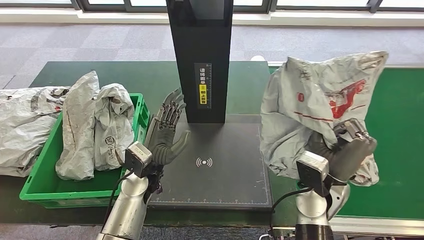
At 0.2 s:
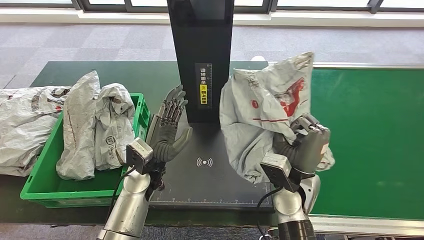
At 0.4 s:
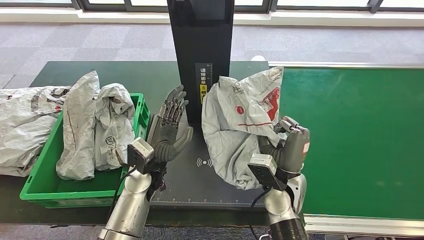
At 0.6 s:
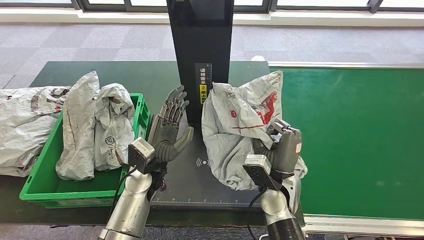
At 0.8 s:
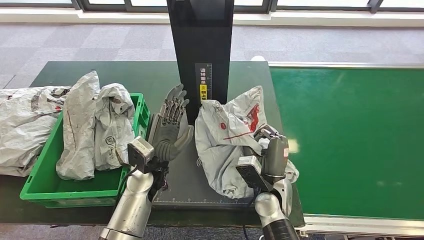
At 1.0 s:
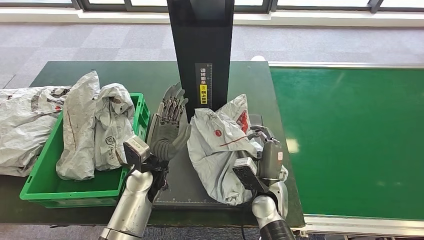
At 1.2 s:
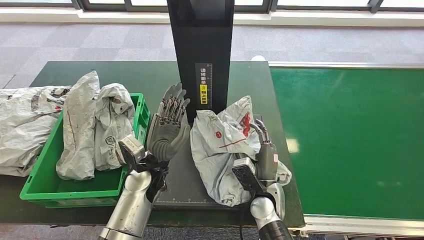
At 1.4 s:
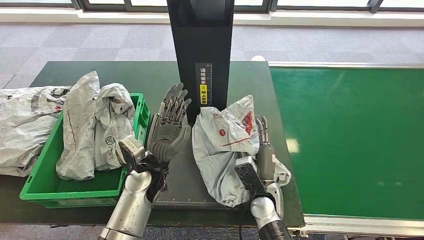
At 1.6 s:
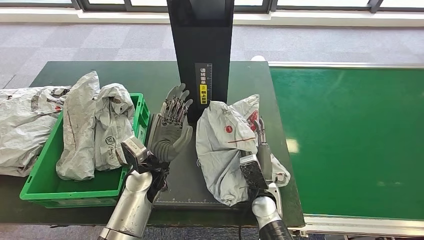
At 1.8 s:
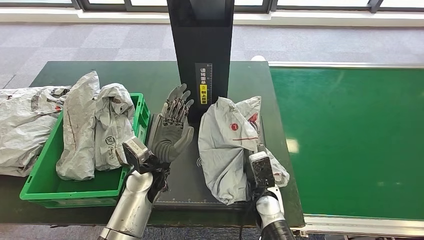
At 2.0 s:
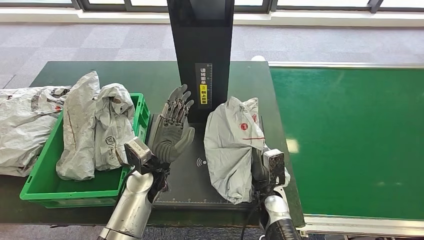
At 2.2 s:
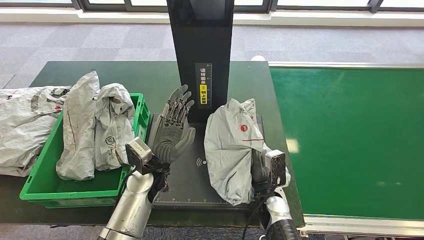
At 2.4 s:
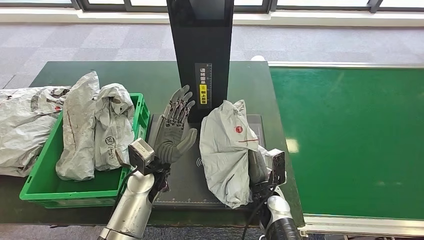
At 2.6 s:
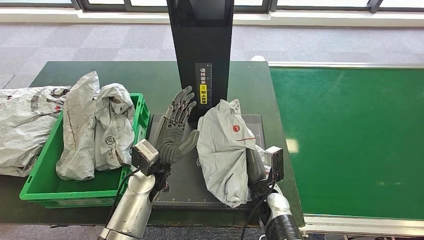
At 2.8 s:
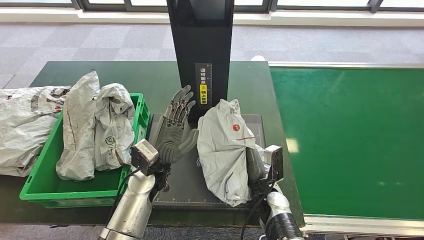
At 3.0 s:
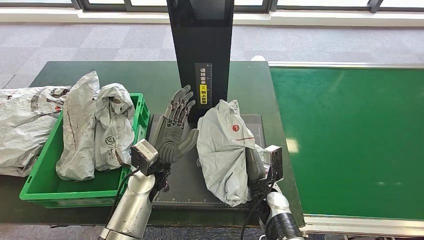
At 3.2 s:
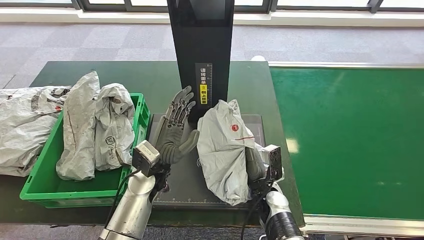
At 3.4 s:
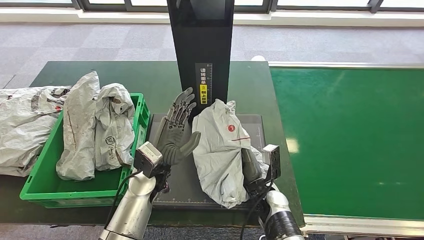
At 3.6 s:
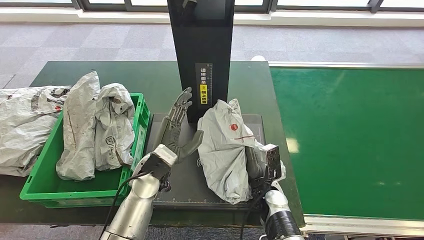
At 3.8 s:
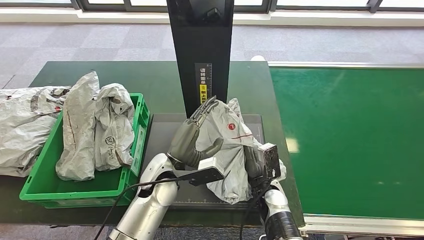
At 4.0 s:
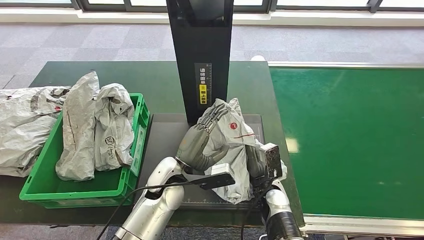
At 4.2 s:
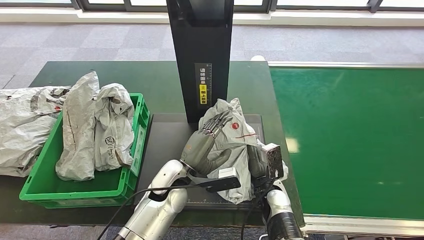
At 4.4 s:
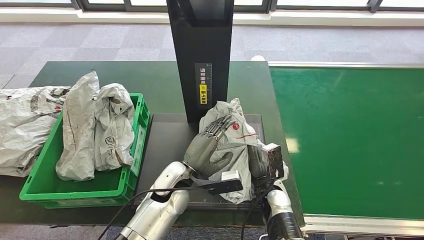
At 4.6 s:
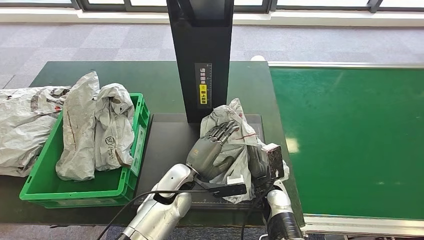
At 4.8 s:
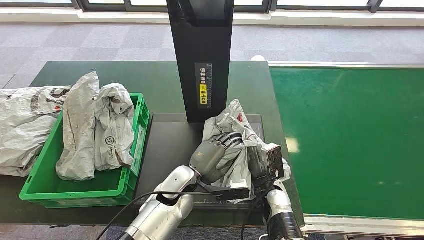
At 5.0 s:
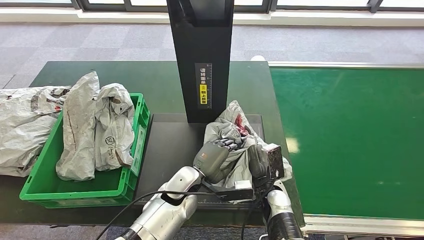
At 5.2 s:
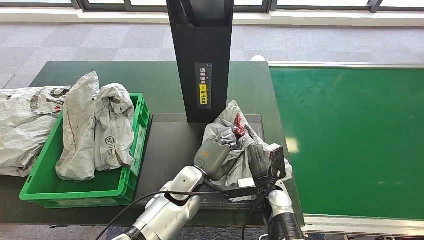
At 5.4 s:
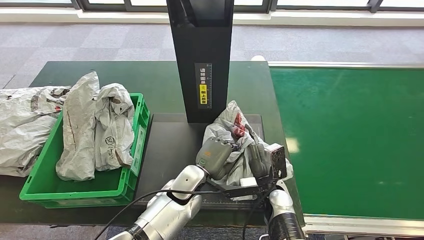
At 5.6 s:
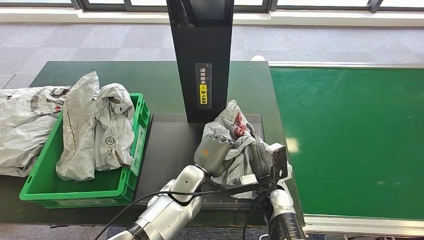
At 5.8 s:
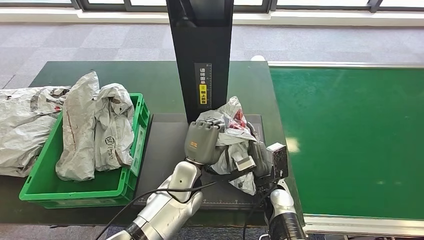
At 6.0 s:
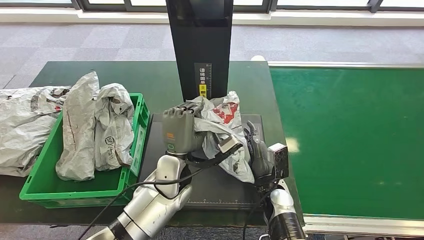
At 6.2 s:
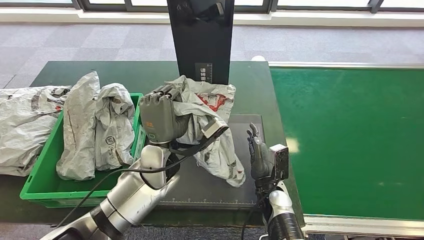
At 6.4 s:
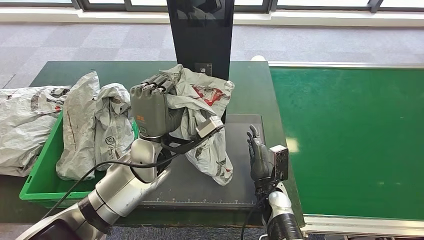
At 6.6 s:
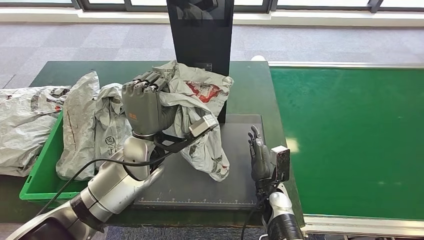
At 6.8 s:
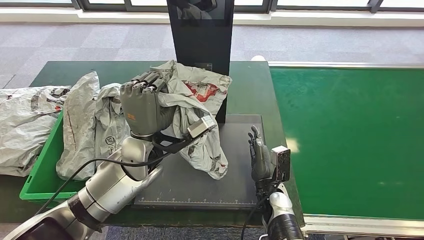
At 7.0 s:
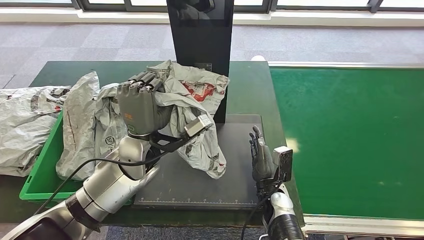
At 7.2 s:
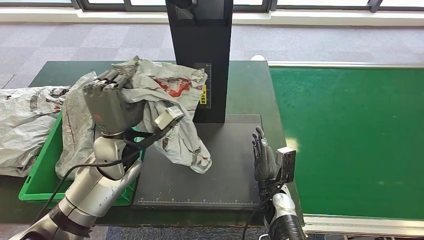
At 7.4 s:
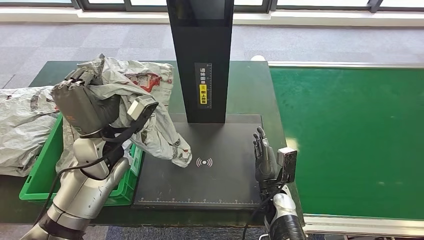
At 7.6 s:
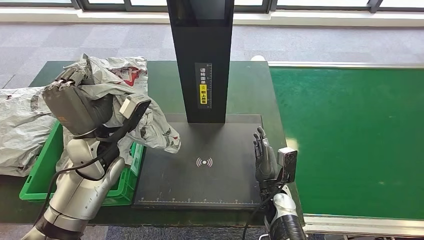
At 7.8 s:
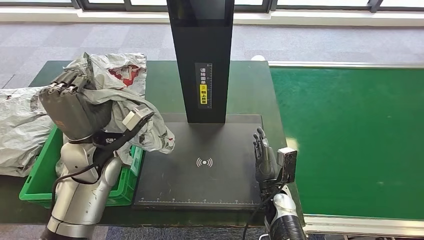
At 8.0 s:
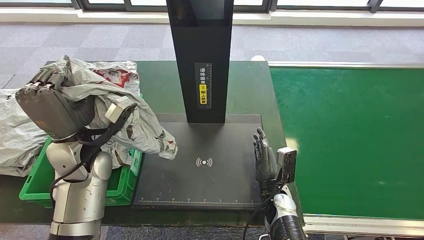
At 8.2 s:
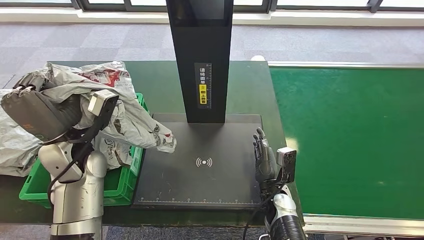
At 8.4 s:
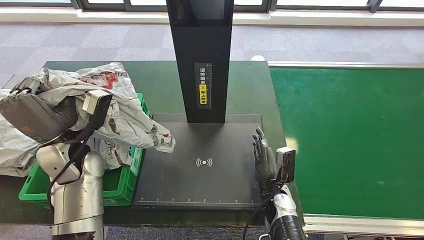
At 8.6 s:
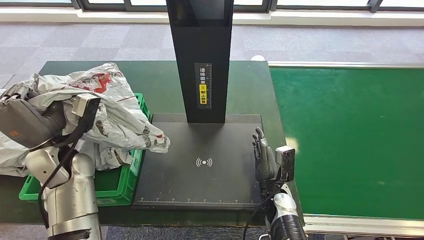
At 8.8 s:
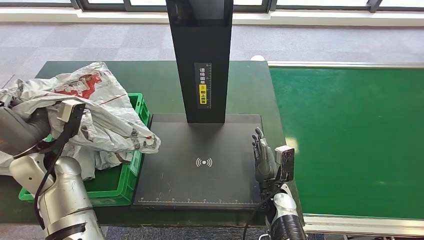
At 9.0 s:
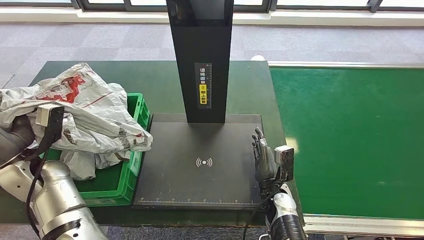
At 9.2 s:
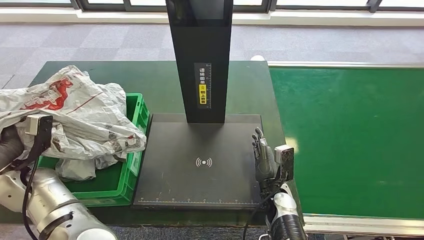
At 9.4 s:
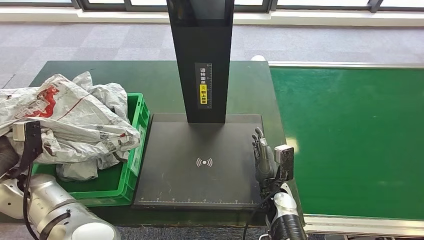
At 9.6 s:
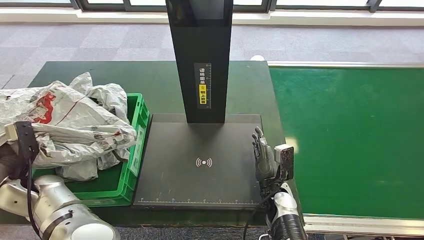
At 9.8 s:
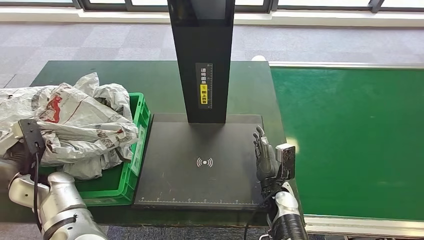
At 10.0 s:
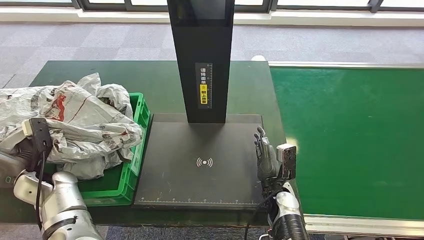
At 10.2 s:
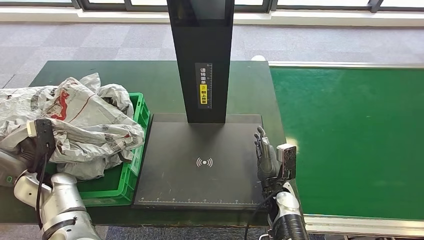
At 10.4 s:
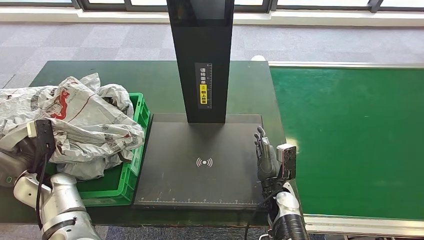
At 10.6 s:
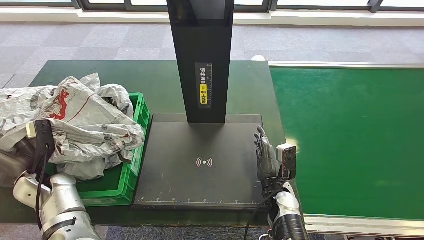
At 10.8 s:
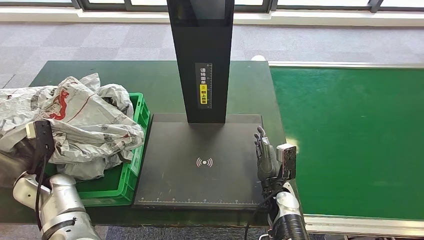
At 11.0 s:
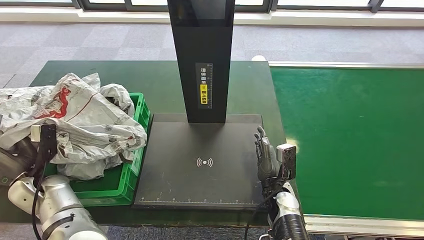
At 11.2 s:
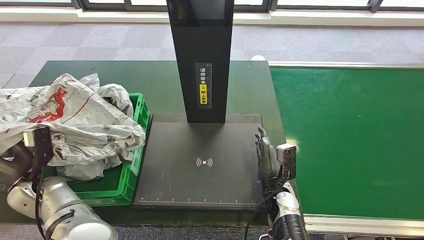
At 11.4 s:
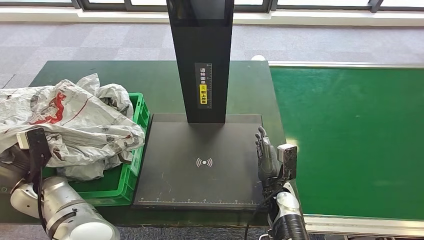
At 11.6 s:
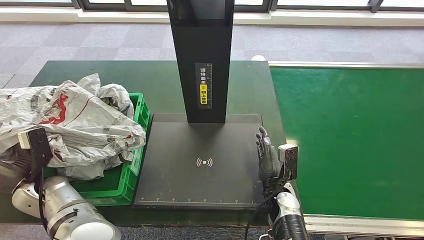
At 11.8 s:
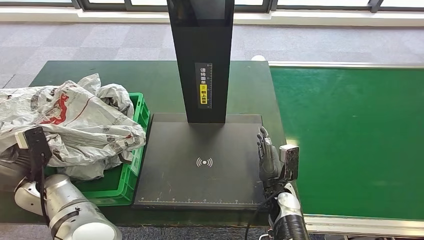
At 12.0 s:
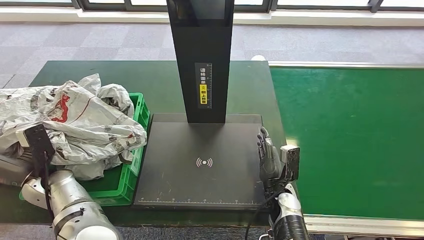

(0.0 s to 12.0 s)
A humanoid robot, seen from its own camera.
Step, 0.2 s - 5.8 s: Place the parcel onto the inbound machine.
Step, 6.0 s - 7.8 s: Pick up the parcel from the inbound machine.
3.0 s - 4.4 s: The left hand goes some 5 cm to the right.
4.4 s - 6.0 s: The left hand changes place by about 5 cm.
7.6 s - 9.0 s: The left hand travels to the left by about 15 cm.
9.0 s - 10.4 s: The left hand heads downward, covering roughly 10 cm.

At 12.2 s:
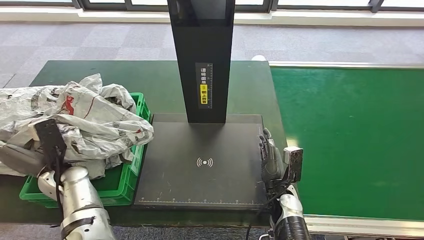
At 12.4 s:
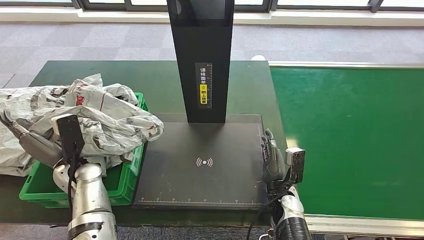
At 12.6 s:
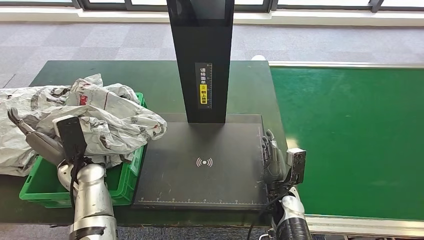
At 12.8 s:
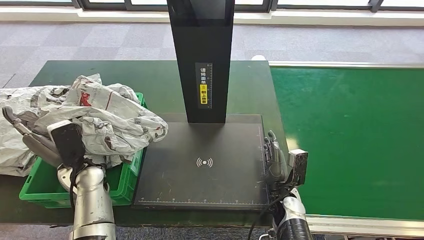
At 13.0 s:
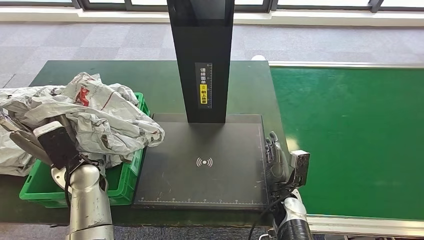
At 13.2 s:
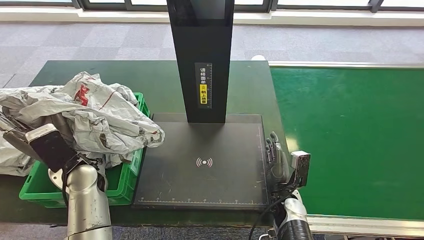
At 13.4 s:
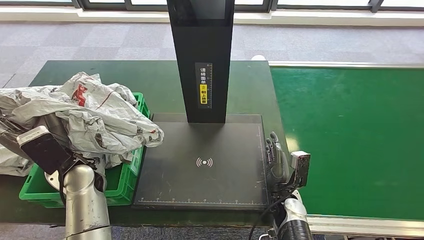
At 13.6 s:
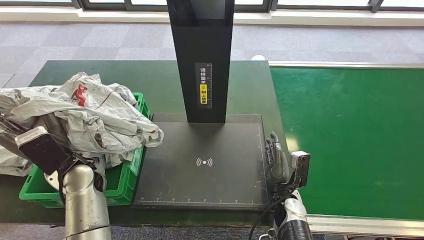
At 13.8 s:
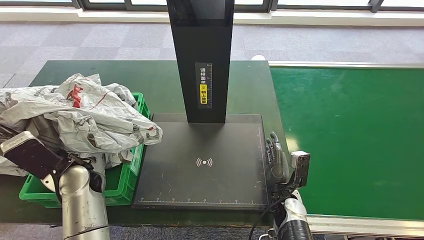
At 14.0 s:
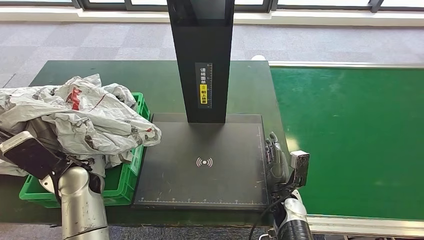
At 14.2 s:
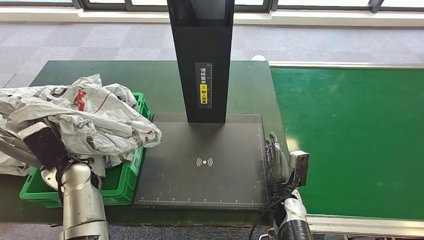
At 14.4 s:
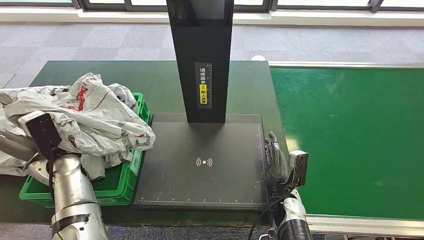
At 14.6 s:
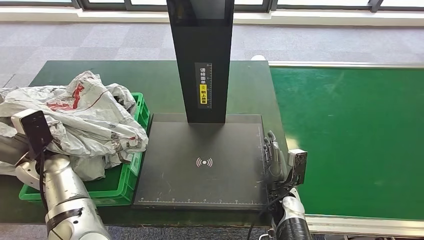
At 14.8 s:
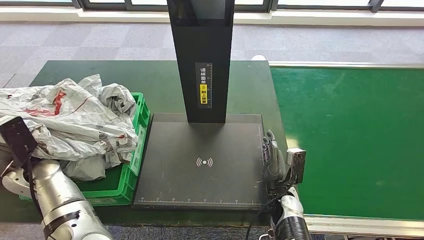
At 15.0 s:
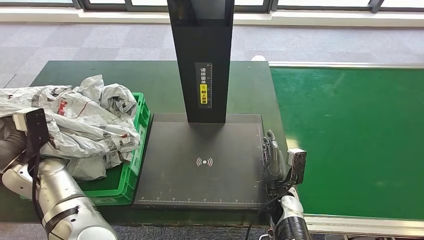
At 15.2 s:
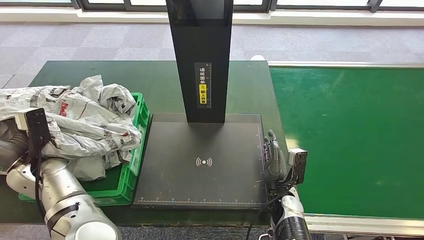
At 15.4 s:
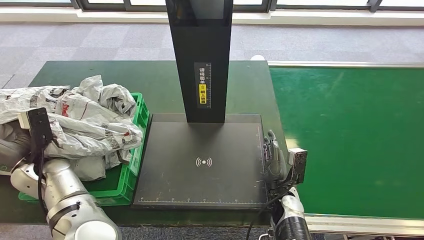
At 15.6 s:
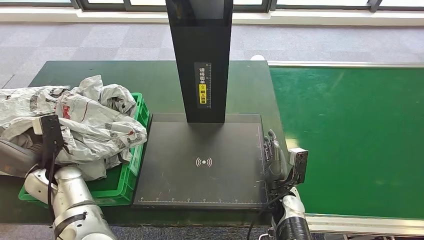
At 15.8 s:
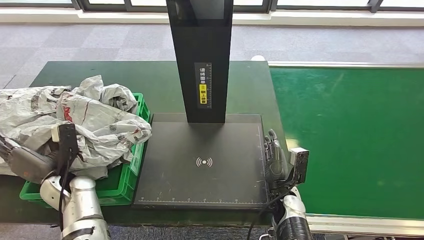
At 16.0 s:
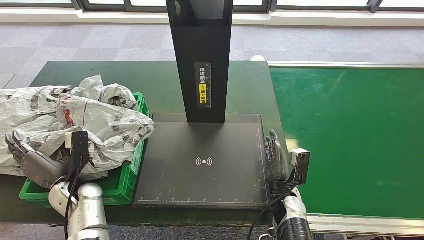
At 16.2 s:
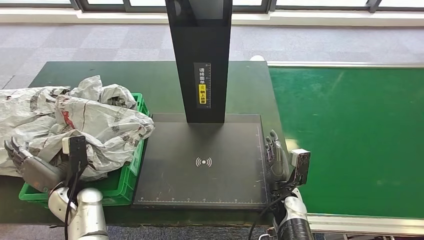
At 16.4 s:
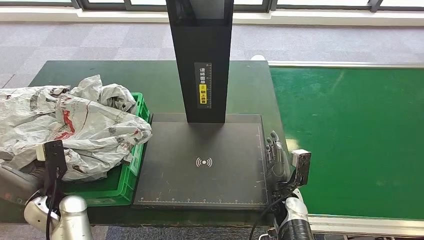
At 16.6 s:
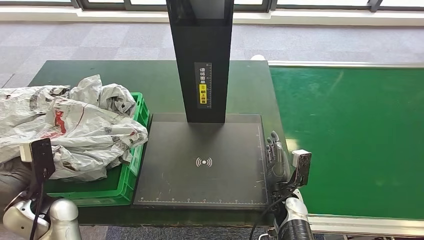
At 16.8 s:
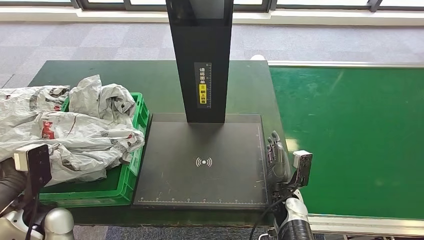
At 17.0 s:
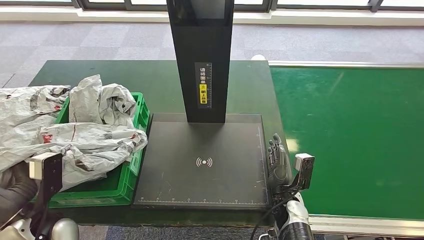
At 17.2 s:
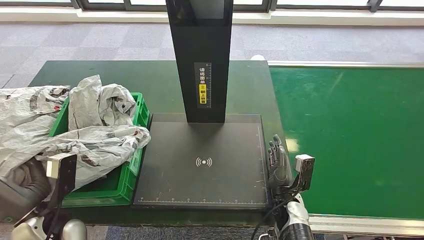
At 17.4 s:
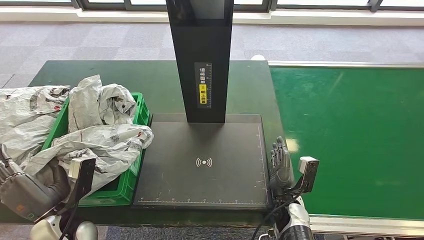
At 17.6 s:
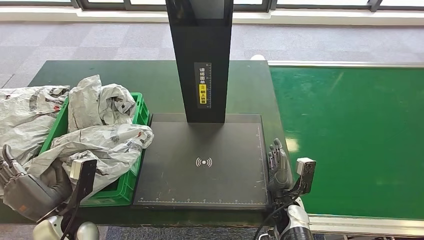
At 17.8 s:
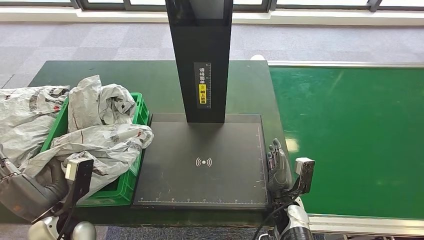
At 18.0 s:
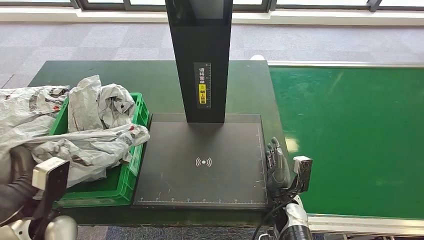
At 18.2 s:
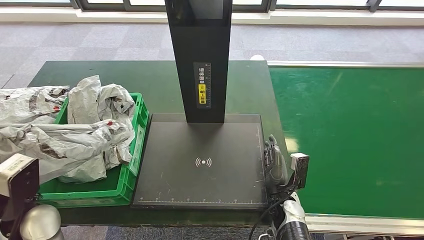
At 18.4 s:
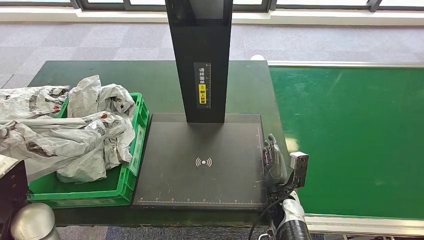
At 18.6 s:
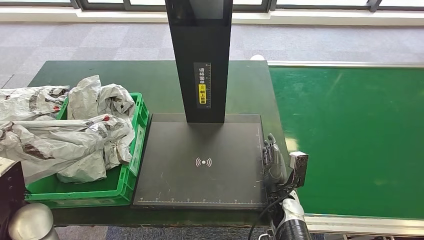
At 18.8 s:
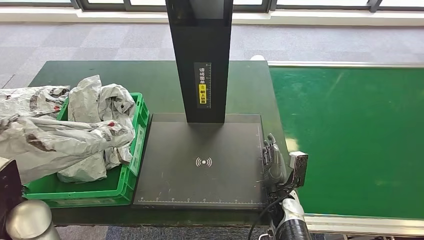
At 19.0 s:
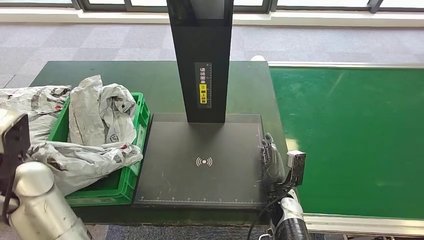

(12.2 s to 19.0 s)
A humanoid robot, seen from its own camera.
12.2 s - 13.6 s: The left hand travels to the right and upward by about 10 cm.
13.6 s - 15.0 s: The left hand shifts some 10 cm to the left.
15.0 s - 16.2 s: The left hand heads downward and to the right, covering roughly 10 cm.
16.2 s - 17.6 s: The left hand goes approximately 10 cm backward.
